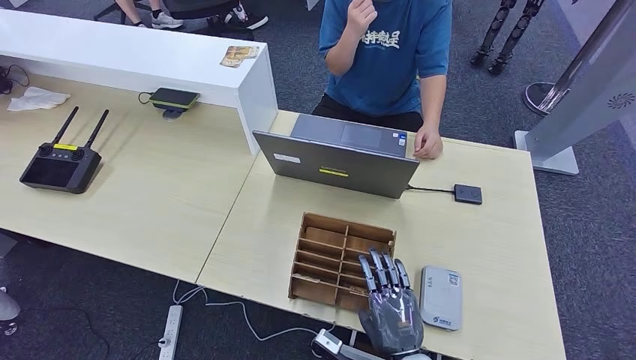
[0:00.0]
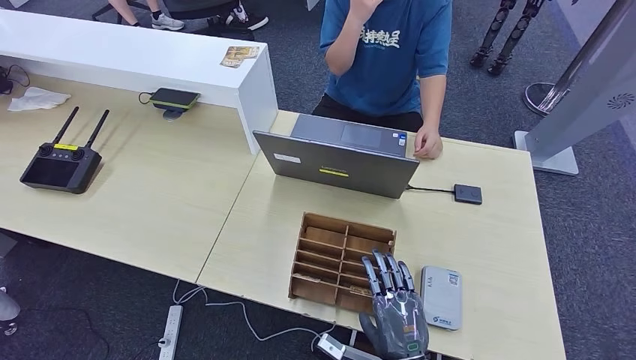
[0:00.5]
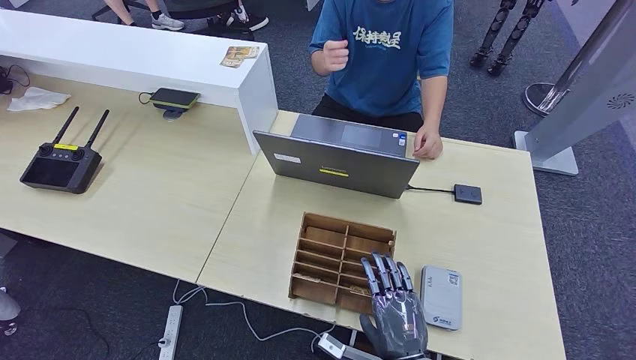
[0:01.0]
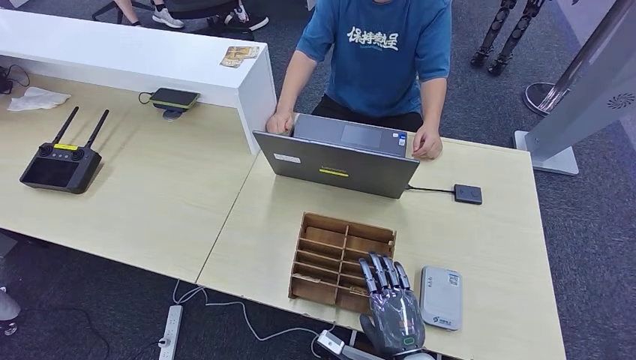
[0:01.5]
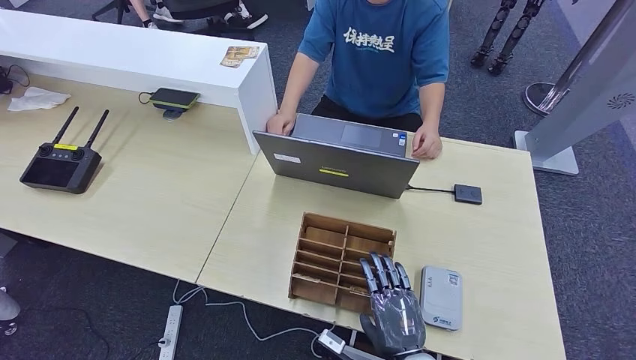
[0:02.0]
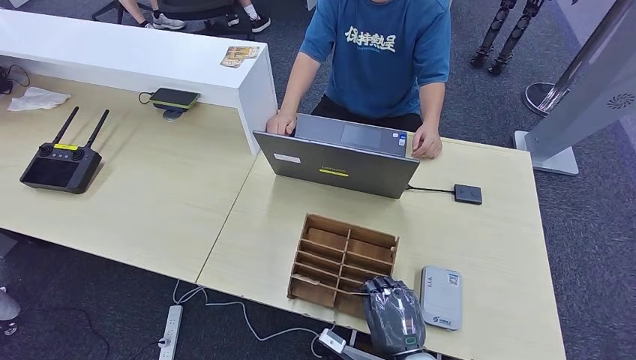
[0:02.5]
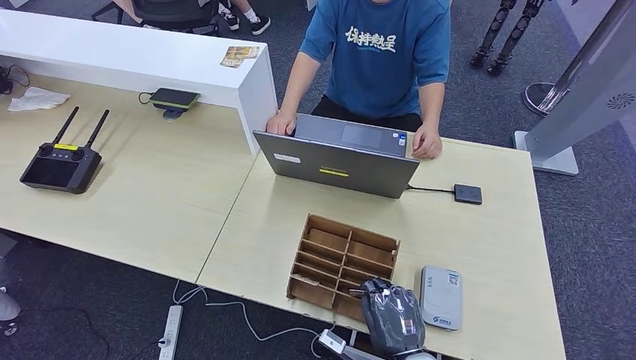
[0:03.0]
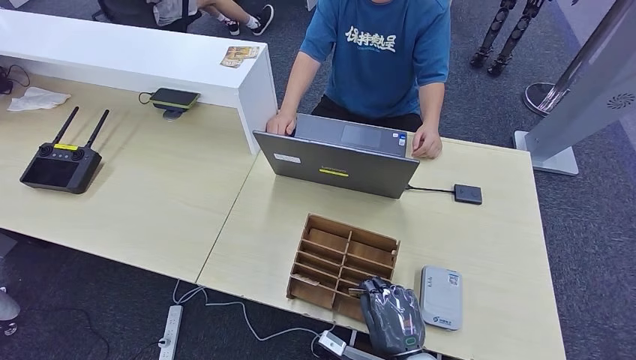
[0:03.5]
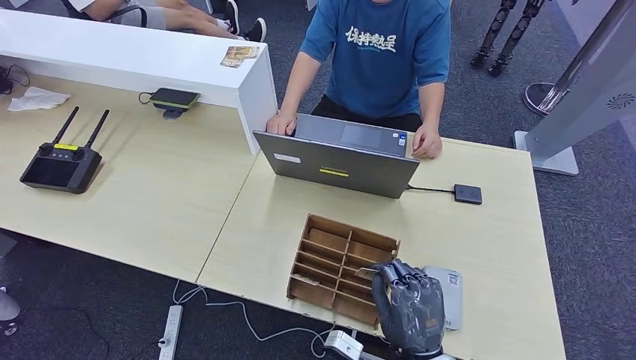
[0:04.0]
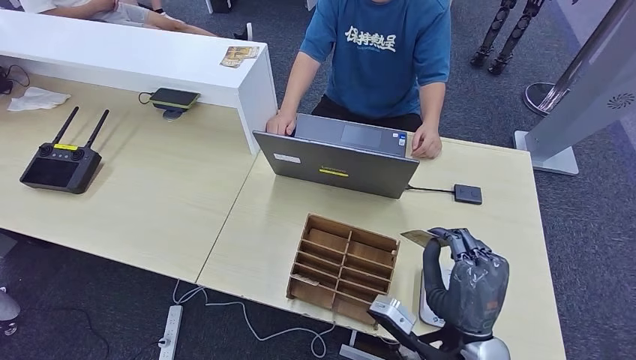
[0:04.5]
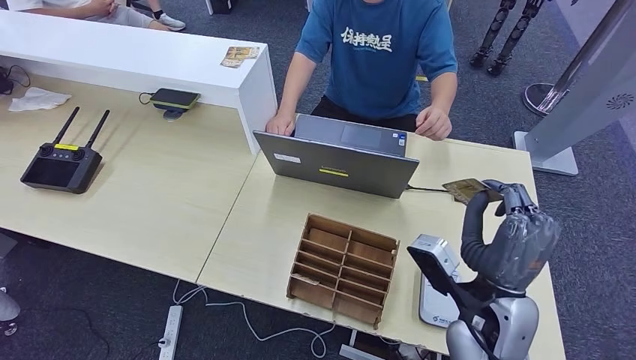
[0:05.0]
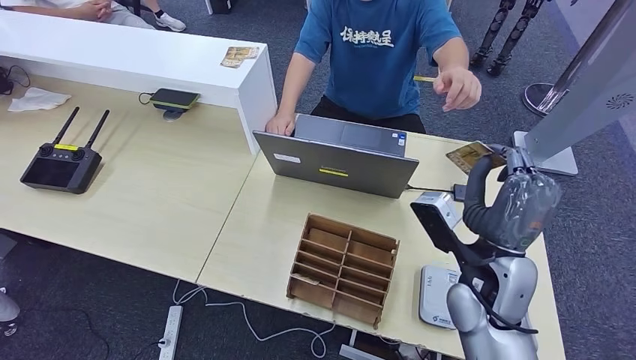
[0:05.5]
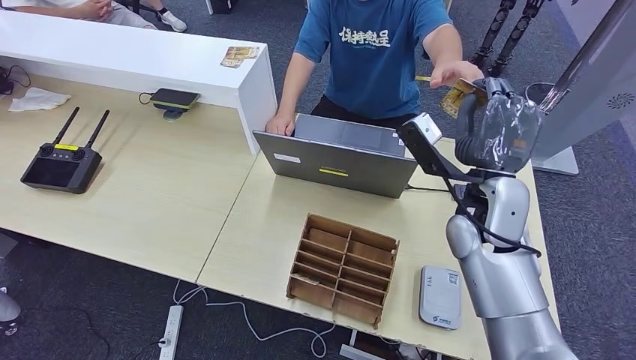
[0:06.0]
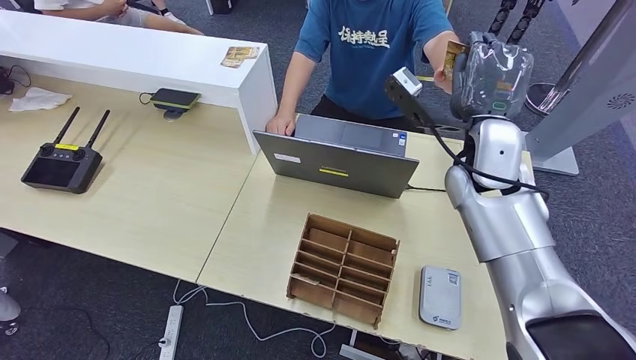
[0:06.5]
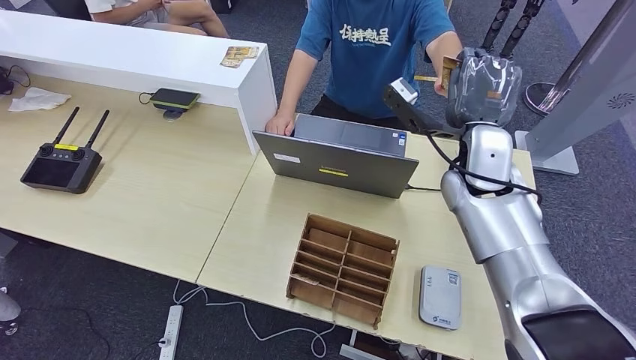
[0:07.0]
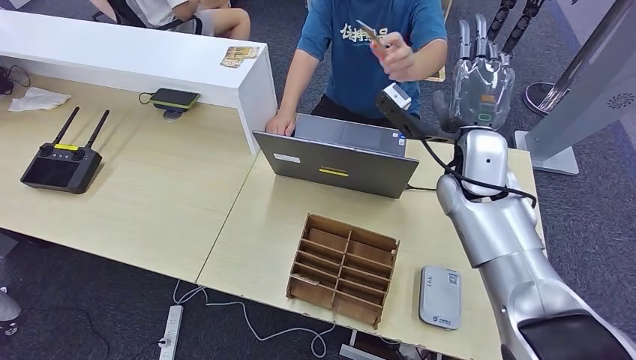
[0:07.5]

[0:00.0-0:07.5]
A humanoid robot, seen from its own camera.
Step, 0:02.5 to 0:04.5: Pick up the room key from the key card box.
Step, 0:05.0 to 0:07.5: Hand the room key to the person.
0:00.0 to 0:02.0: The hands make only small movements.
0:04.0 to 0:05.5: The right hand is displaced forward, upward and to the right by roughly 20 cm.
0:05.5 to 0:07.5: The right hand shifts about 15 cm forward and upward.

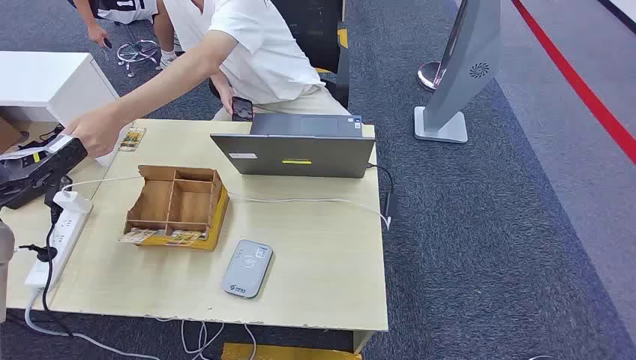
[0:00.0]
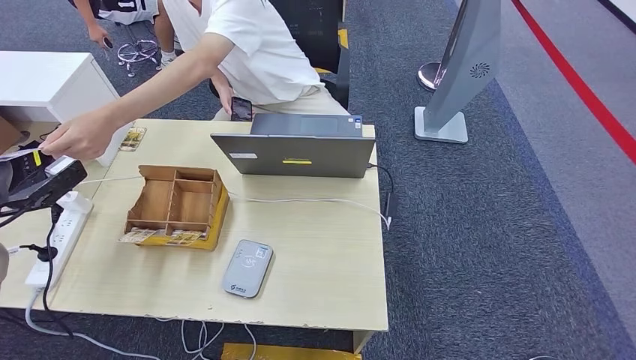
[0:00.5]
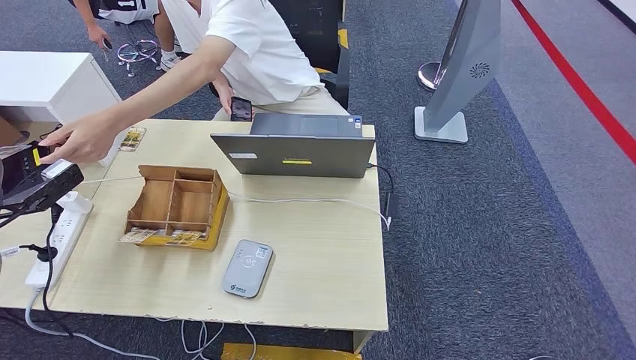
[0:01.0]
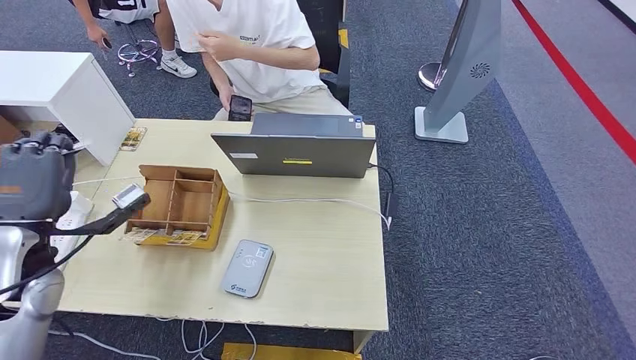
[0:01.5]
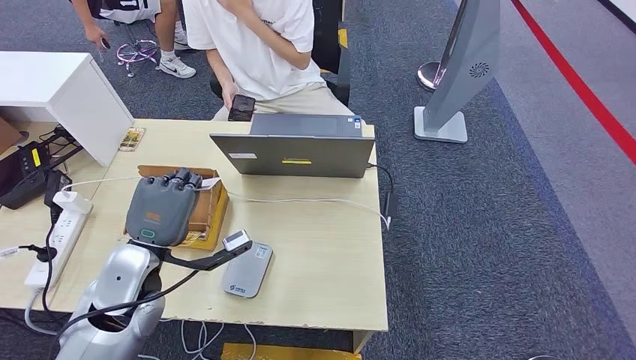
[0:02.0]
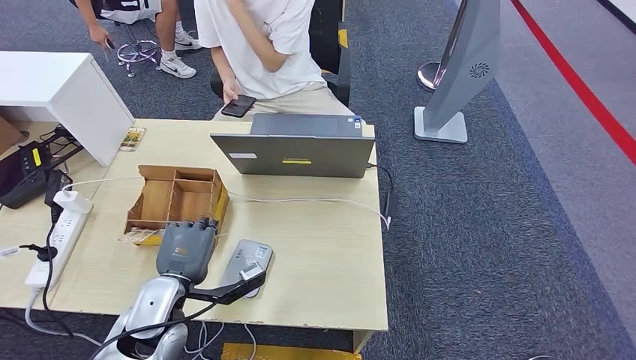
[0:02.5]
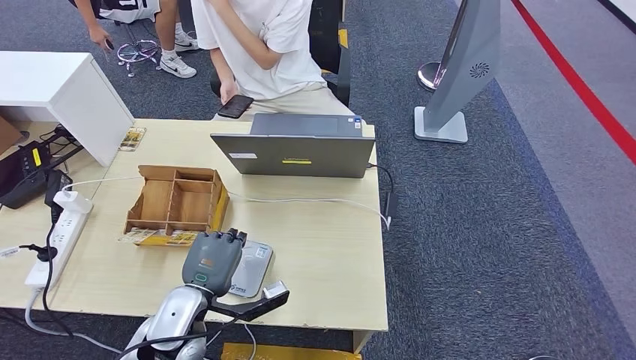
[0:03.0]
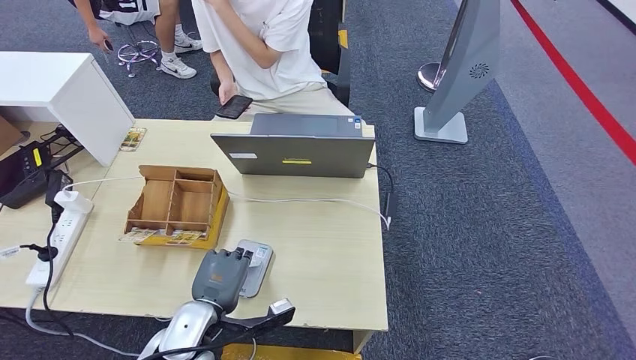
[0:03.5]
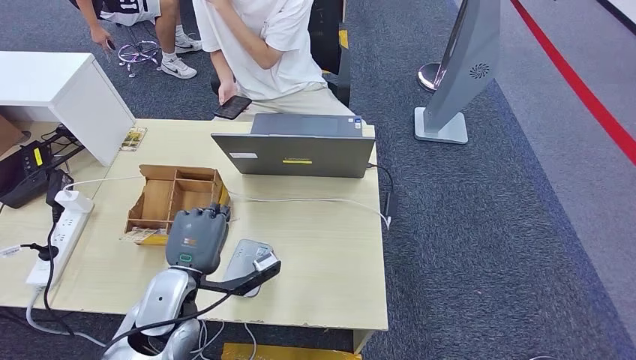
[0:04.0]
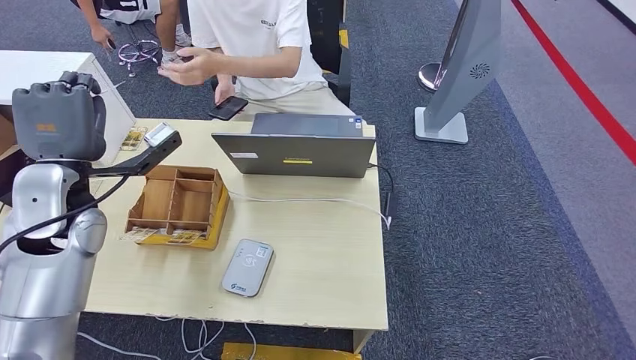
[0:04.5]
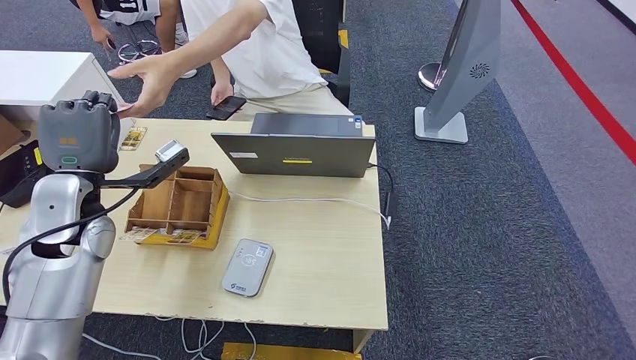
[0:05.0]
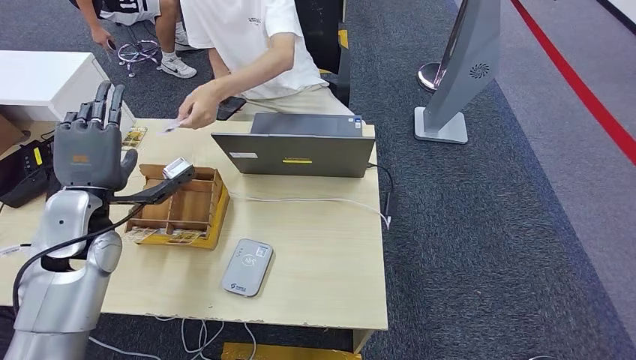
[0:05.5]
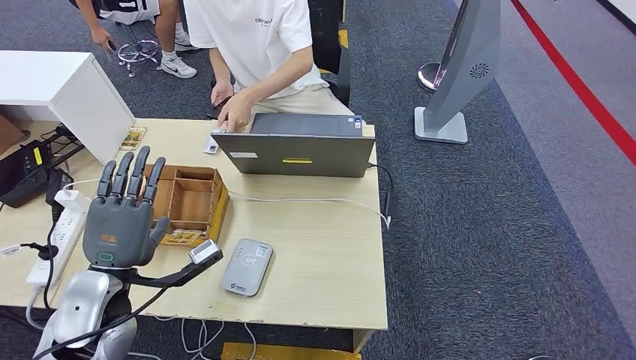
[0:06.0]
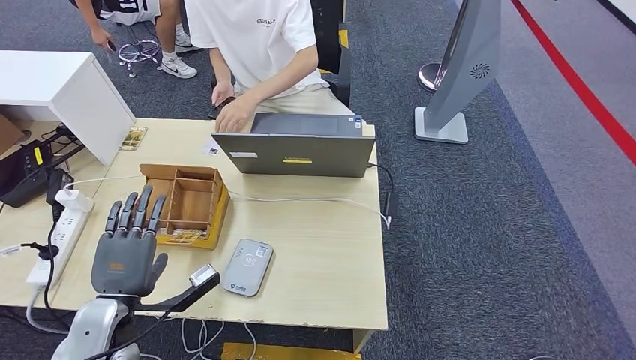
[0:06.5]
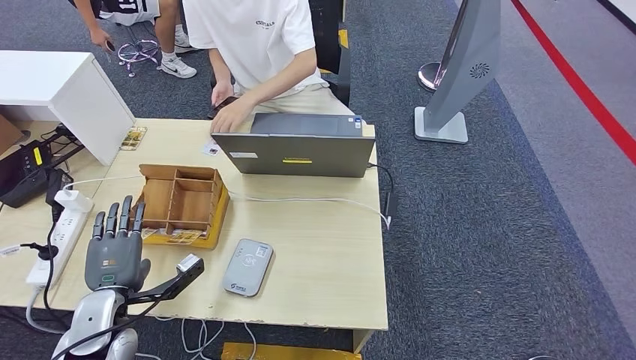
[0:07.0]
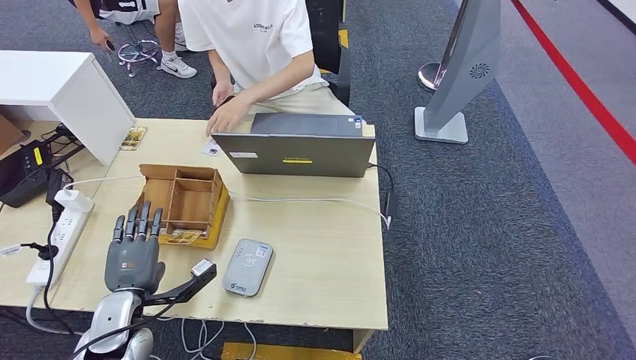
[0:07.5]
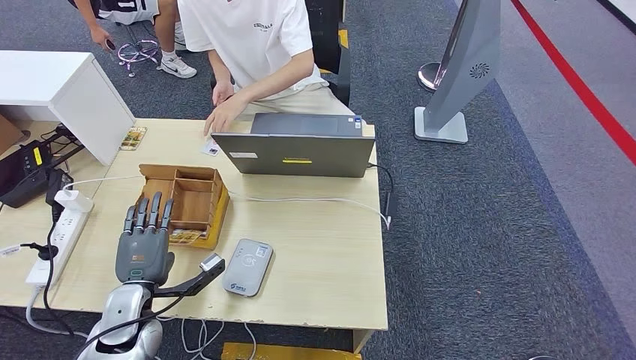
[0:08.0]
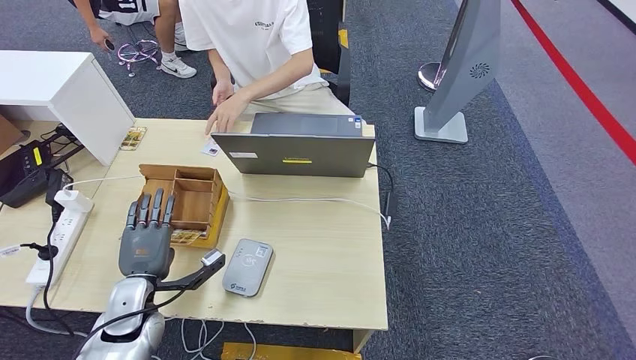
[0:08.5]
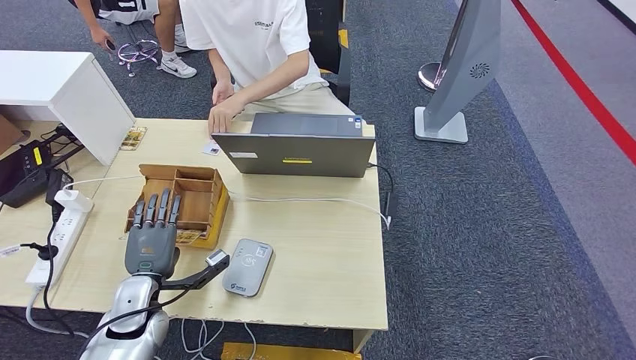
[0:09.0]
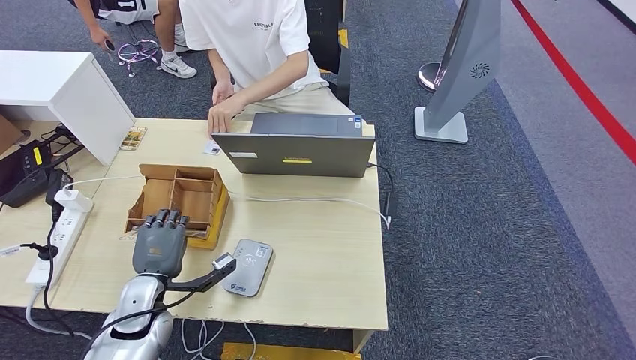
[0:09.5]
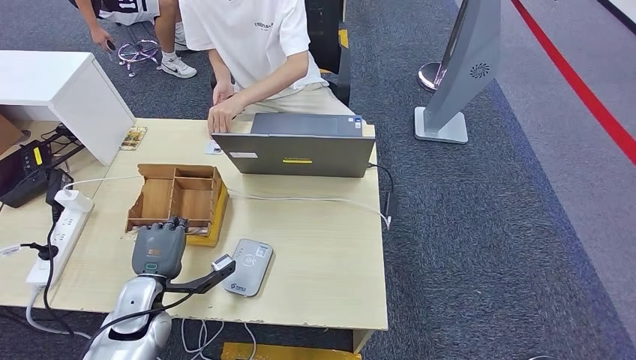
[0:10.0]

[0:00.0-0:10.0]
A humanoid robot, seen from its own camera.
Step, 0:00.0 to 0:01.0: Take the ID card from the person's hand.
Step, 0:01.5 to 0:04.0: Place the ID card on the card reader.
Step, 0:04.5 to 0:08.0: Hand the ID card to the person.
0:02.0 to 0:04.0: The left hand moves to the right, about 5 cm.
0:04.0 to 0:06.0: The left hand is displaced to the left by some 10 cm, and moves roughly 15 cm upward and comes back.
0:06.0 to 0:08.0: The left hand heads downward, covering approximately 10 cm.
0:08.0 to 0:10.0: There are only small adjustments of the hands.

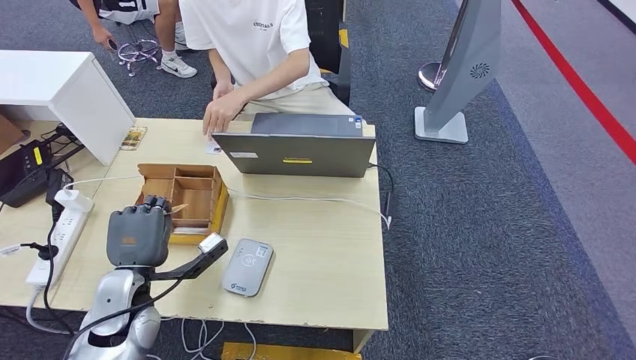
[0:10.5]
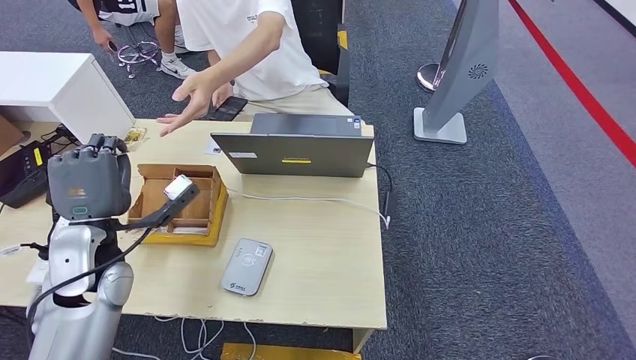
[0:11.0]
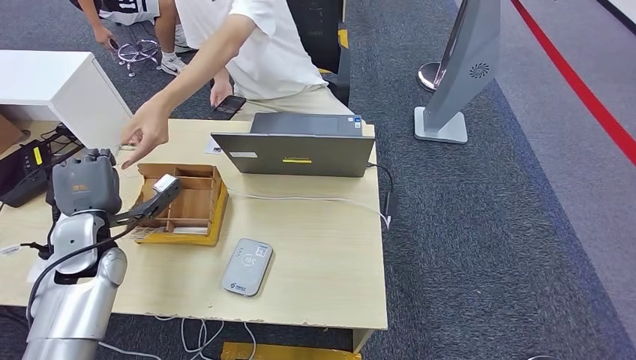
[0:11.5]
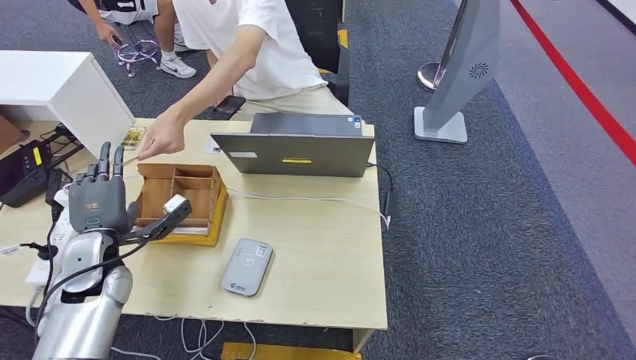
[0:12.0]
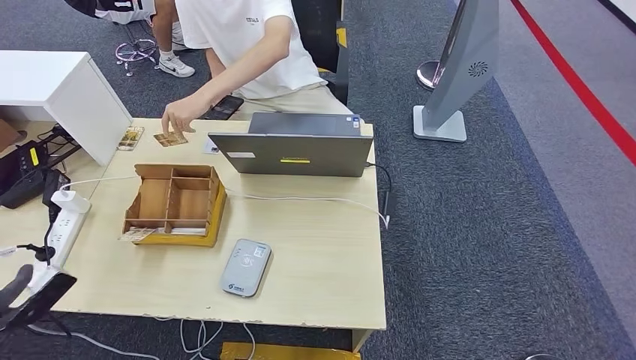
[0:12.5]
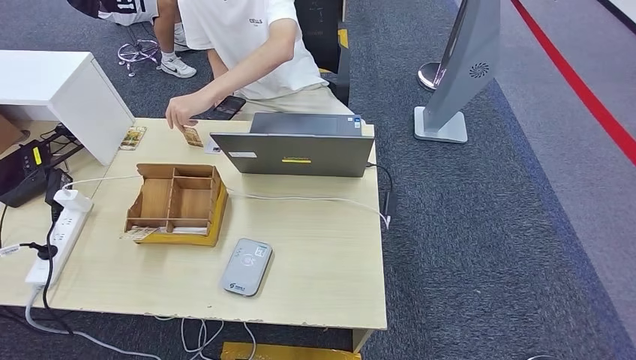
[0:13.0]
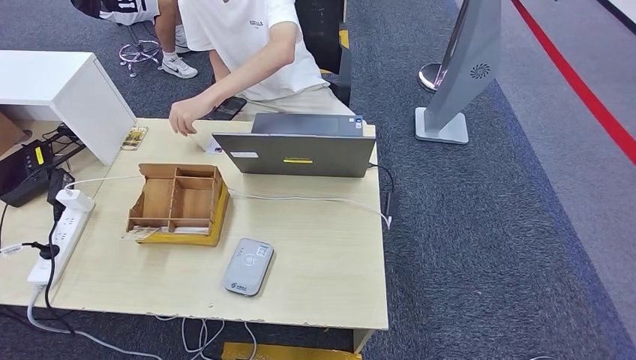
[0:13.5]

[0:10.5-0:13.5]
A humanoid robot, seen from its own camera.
Step, 0:11.5 to 0:13.5: Hand the room key to the person.
0:10.5 to 0:12.0: The left hand moves to the left and forward, about 10 cm, and reaches approximately 10 cm upward, then returns.
0:12.0 to 0:13.5: The left hand travels backward and downward by roughly 40 cm.
